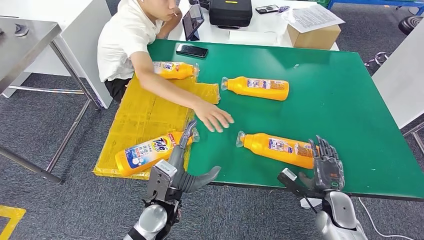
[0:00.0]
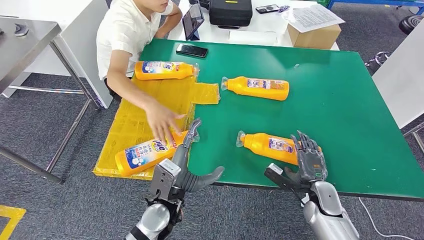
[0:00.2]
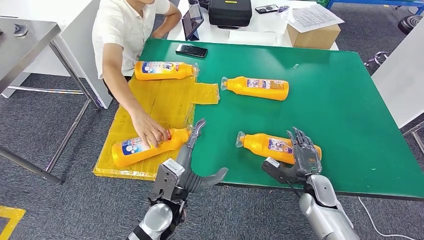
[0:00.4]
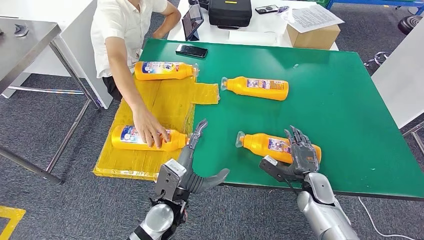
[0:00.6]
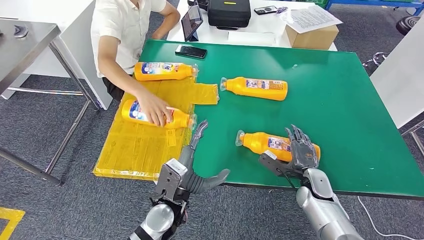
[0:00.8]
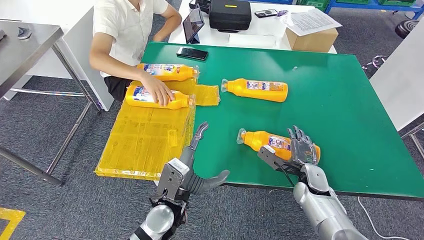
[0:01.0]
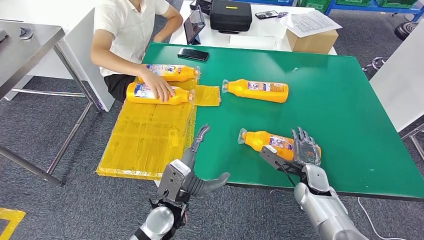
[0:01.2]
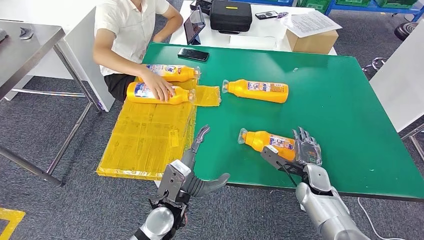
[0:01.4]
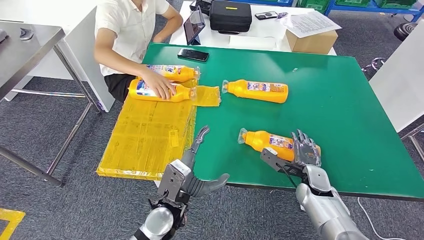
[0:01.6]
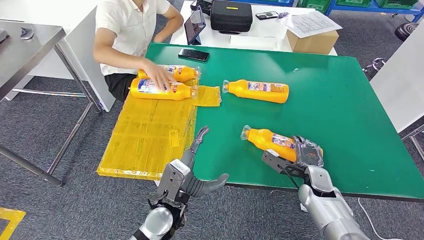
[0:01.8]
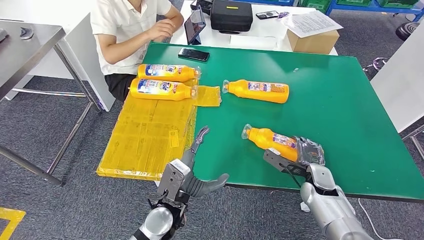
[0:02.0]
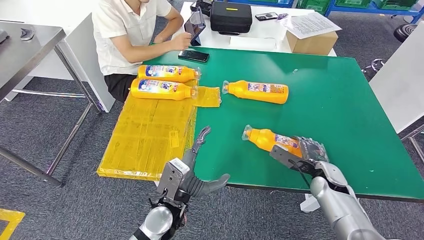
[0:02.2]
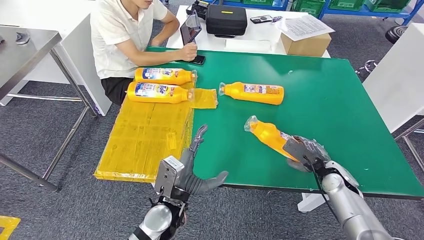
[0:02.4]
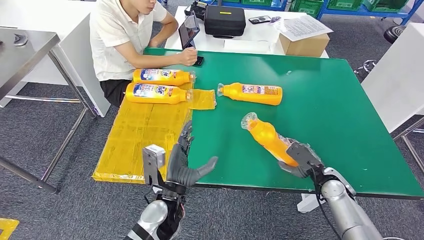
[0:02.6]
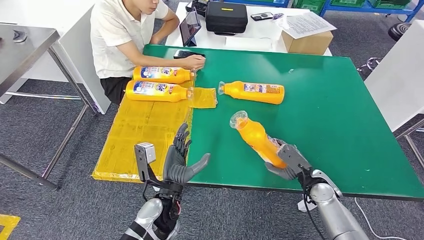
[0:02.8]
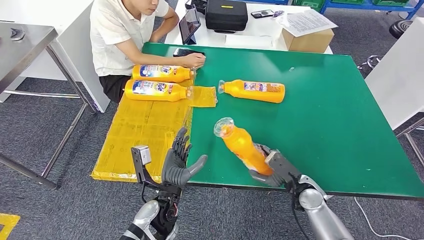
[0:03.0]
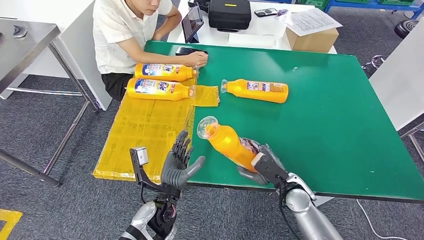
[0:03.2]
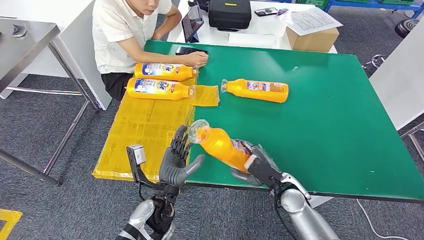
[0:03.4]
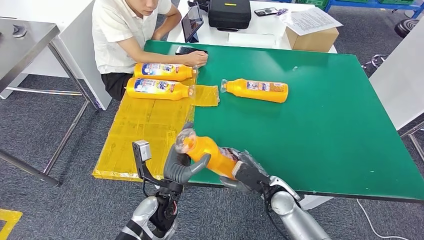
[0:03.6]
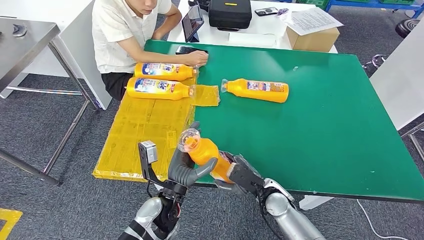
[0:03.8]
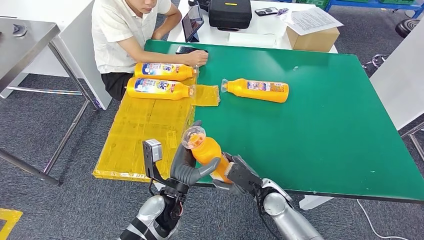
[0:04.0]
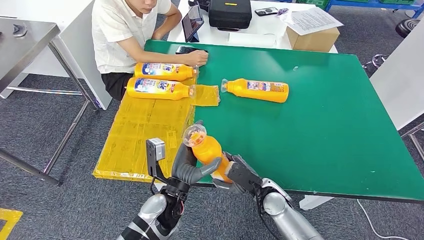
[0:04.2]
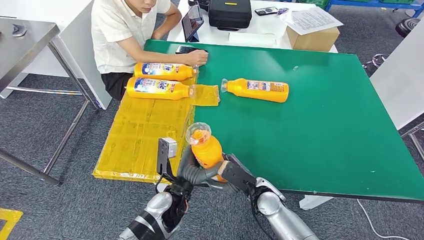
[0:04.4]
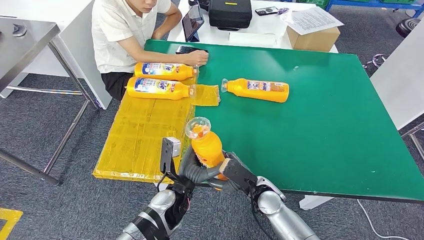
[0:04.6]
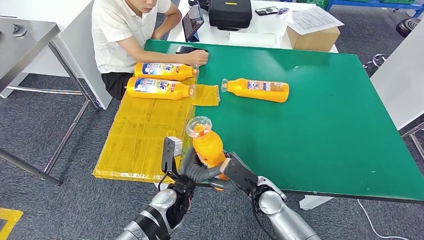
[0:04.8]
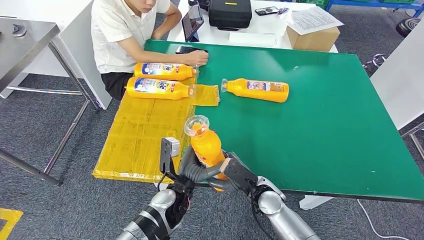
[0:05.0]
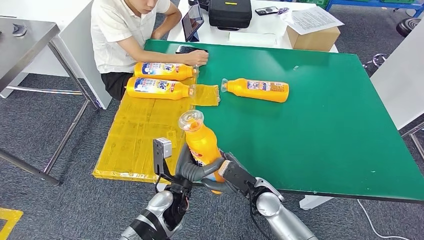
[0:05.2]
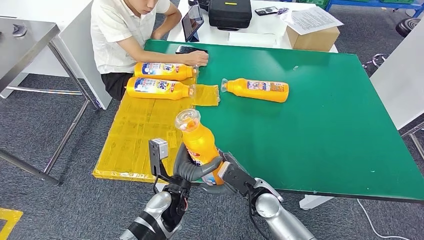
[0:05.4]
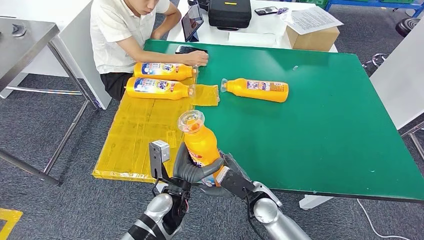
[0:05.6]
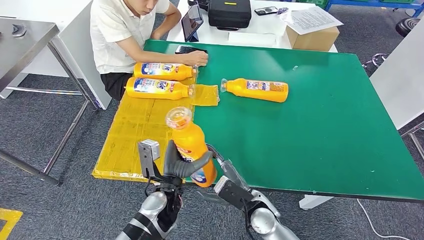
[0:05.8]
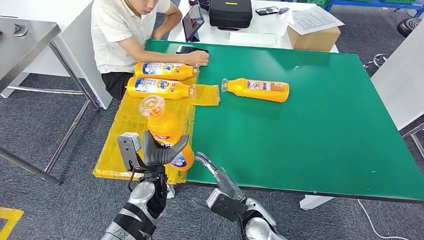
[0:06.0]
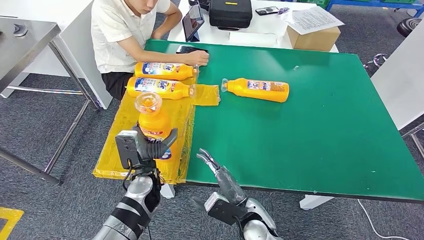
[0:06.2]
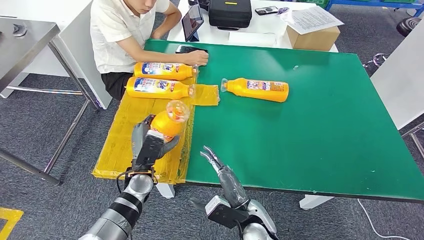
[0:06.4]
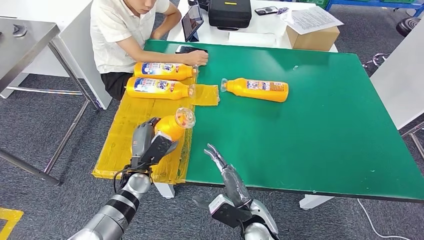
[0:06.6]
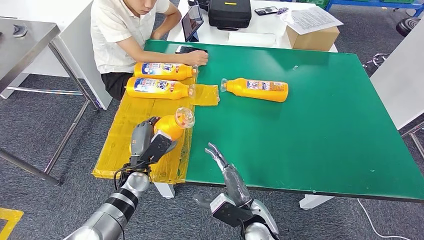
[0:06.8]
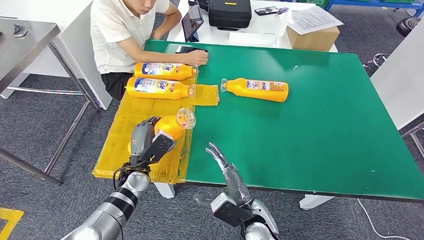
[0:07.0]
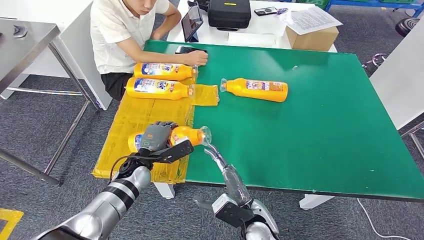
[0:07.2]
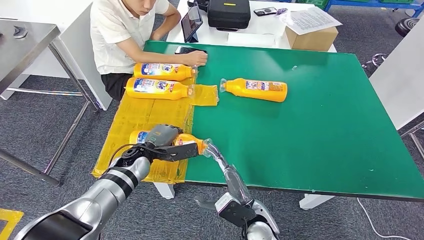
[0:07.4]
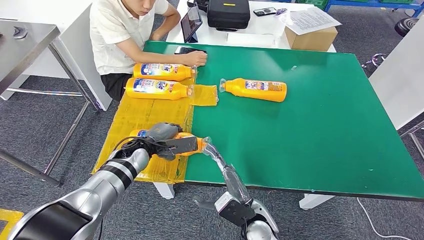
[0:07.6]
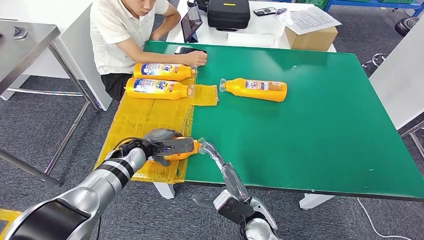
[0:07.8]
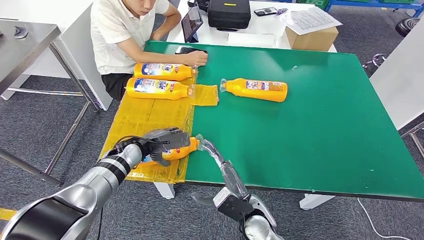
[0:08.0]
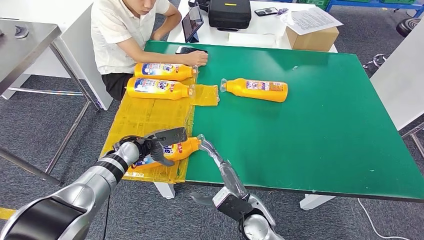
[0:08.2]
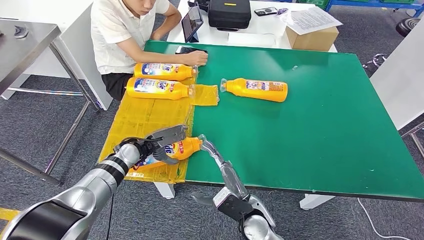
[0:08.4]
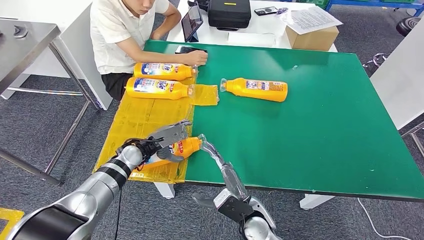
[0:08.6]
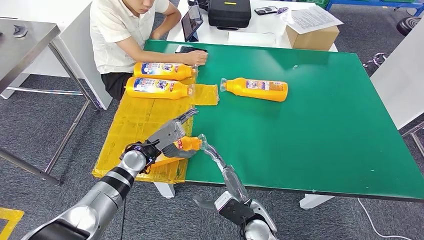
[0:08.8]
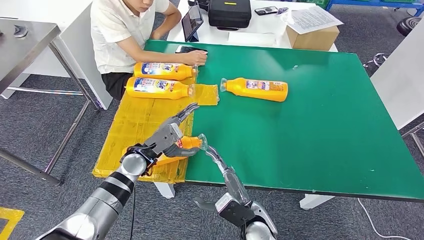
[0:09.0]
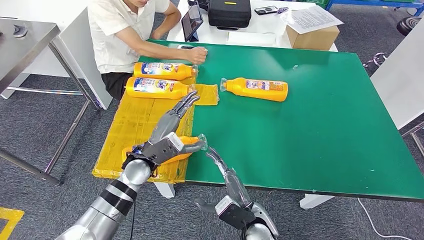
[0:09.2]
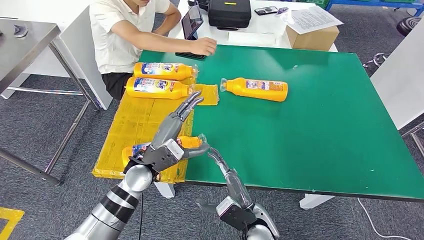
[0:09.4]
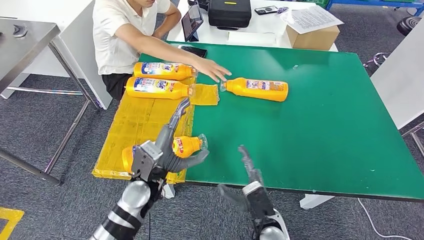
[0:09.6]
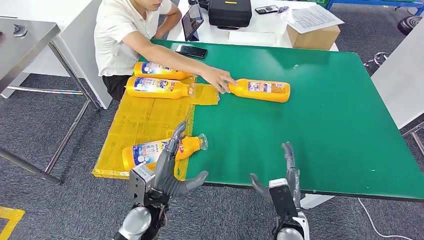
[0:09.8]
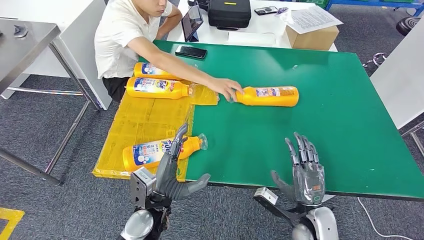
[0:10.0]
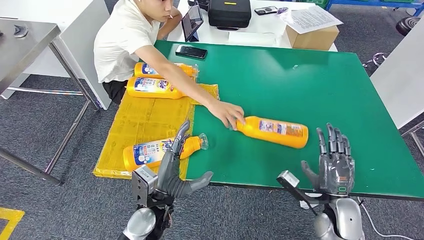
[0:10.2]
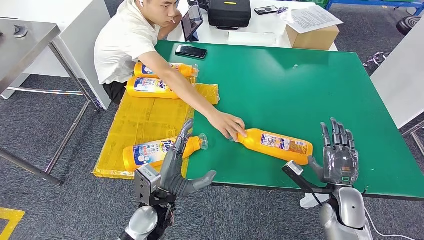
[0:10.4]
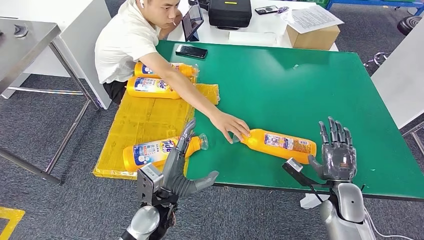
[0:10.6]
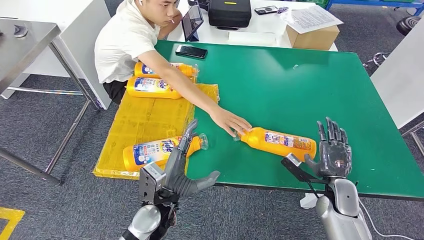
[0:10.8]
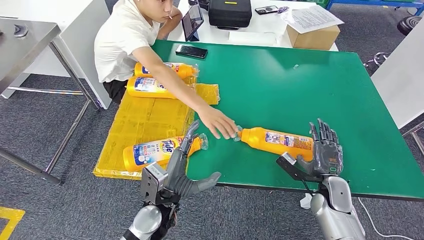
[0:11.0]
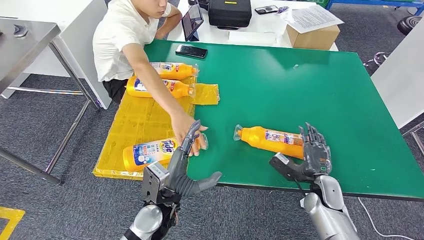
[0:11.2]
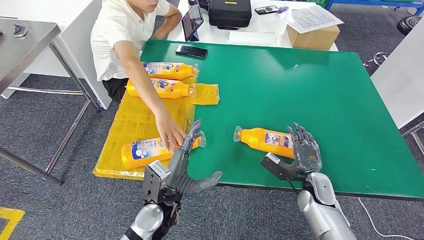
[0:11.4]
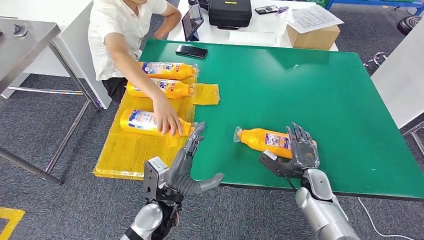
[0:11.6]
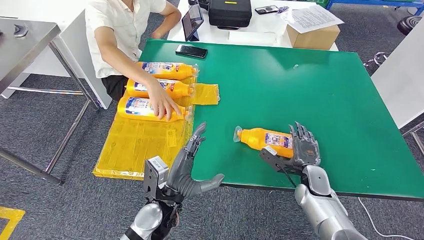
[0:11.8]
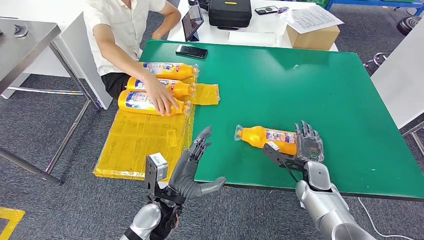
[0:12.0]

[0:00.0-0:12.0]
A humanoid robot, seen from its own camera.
Step, 0:00.0 to 0:02.4: Pick up the fast-moving consumer goods bottle from the table.
Step, 0:03.4 to 0:07.6: Flip the fast-moving consumer goods bottle to the front side.
0:04.4 to 0:06.0: The left hand shifts about 5 cm to the left; the right hand travels backward by some 5 cm.
0:10.4 to 0:12.0: The right hand shifts approximately 10 cm forward.

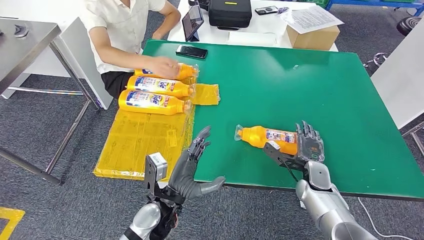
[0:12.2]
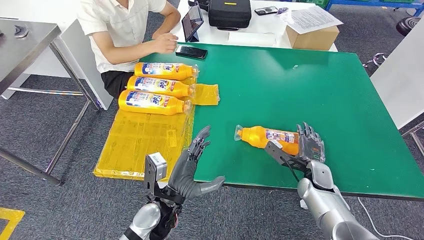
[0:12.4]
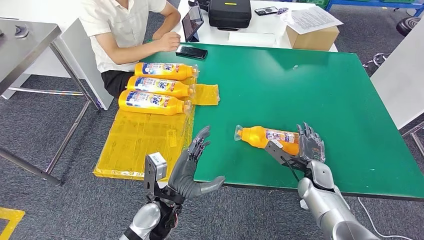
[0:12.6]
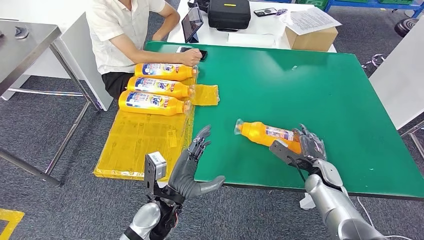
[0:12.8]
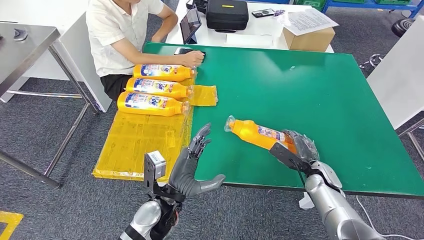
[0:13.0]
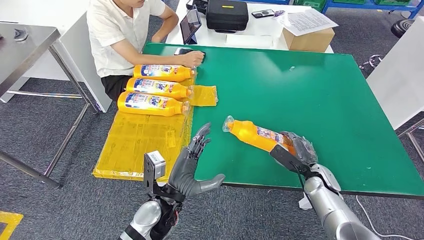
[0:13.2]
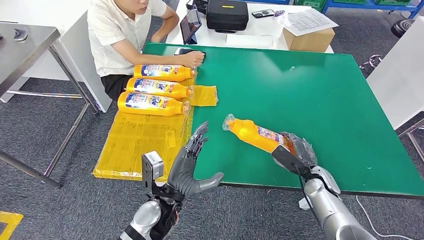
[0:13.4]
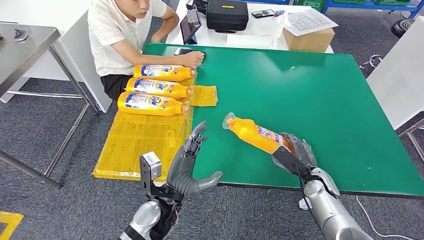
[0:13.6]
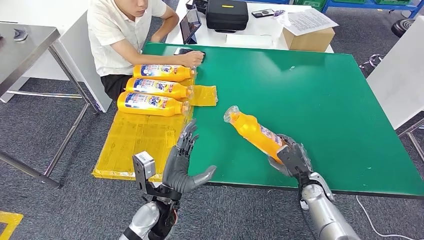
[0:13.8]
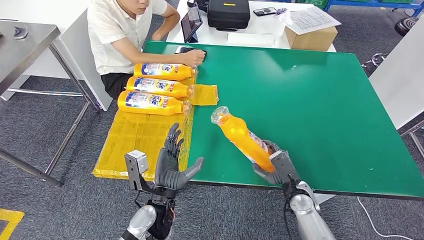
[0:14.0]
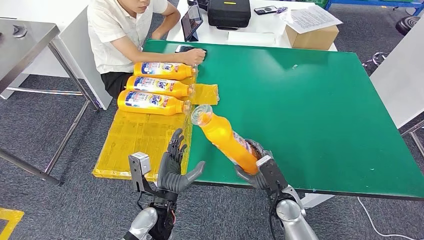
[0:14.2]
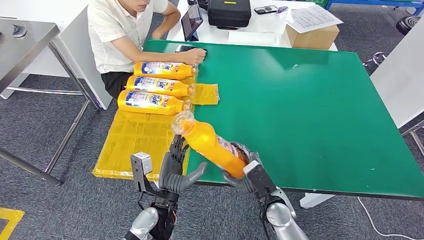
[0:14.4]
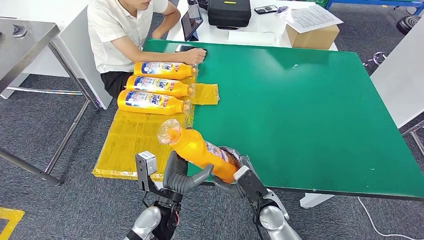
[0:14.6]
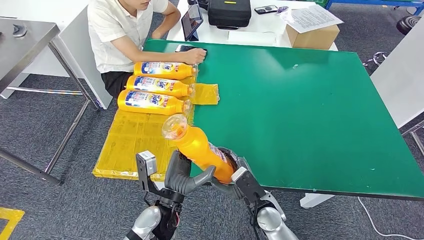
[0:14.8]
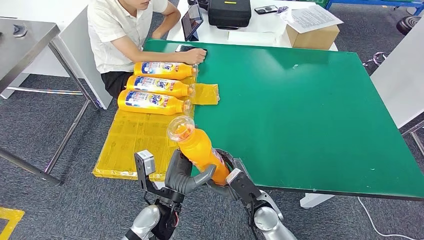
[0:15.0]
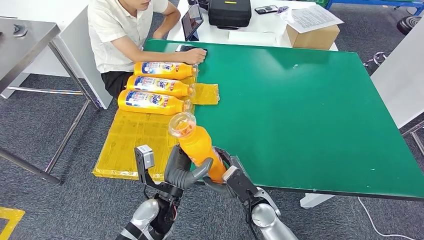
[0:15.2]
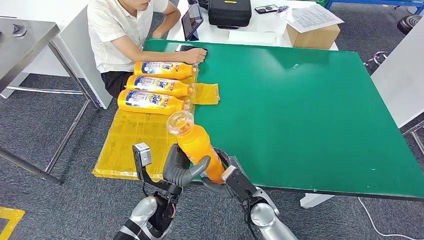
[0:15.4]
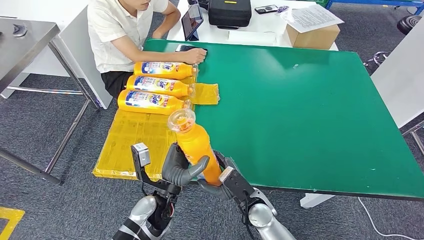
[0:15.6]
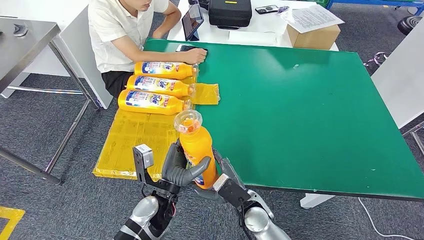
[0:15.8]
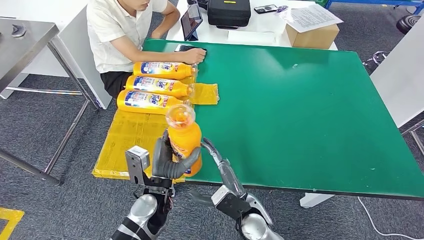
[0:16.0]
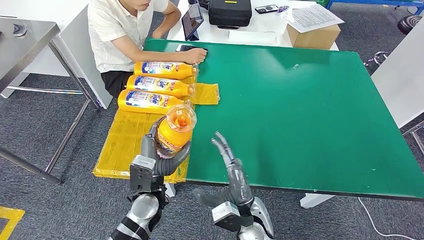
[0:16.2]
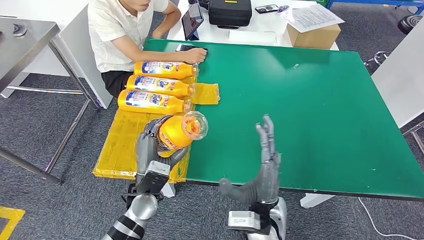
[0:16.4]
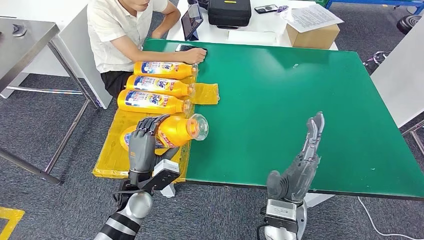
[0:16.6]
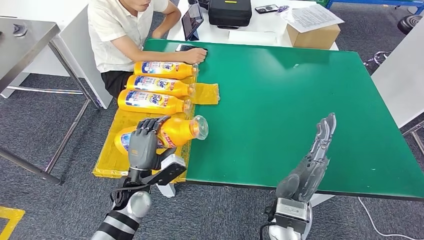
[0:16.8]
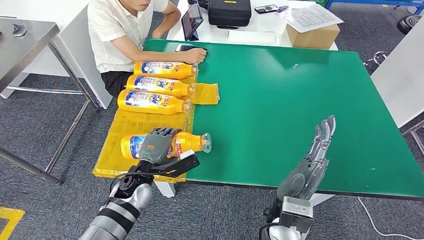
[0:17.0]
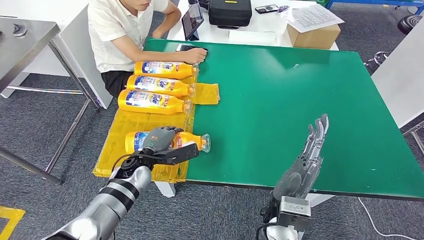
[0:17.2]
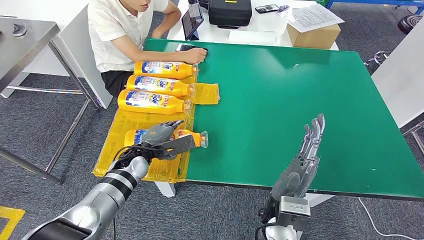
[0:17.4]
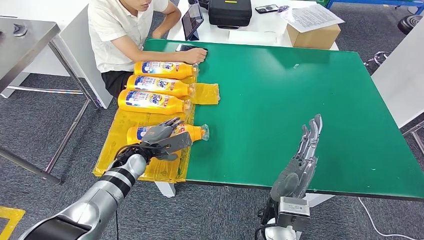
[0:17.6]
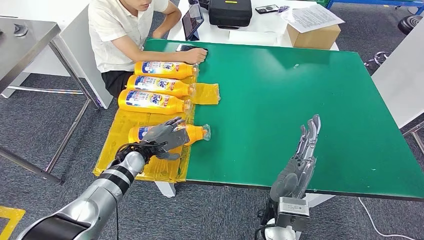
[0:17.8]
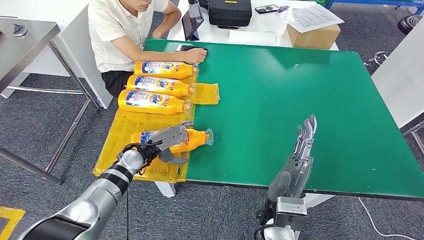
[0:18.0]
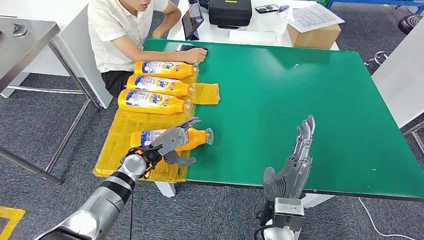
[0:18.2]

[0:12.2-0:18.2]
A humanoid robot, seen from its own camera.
Step, 0:12.2 to 0:15.0: Pick up the fast-moving consumer goods bottle from the table.
Step, 0:15.2 to 0:18.2: Flip the fast-moving consumer goods bottle to the front side.
0:15.2 to 0:16.6: The left hand travels to the left by approximately 5 cm, while the right hand is displaced upward by roughly 10 cm.
0:16.6 to 0:18.2: The left hand is displaced forward by roughly 10 cm.
